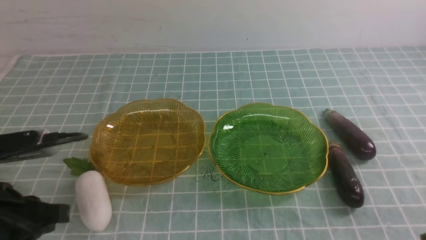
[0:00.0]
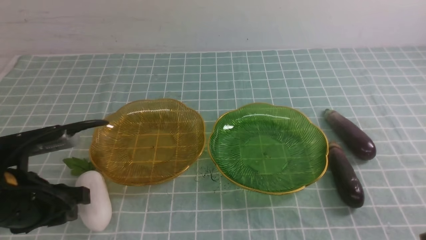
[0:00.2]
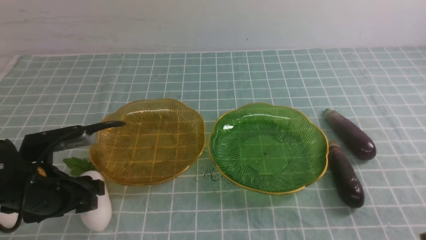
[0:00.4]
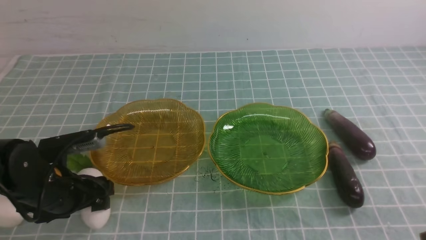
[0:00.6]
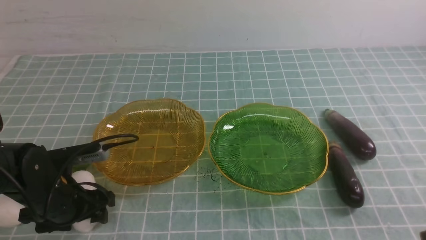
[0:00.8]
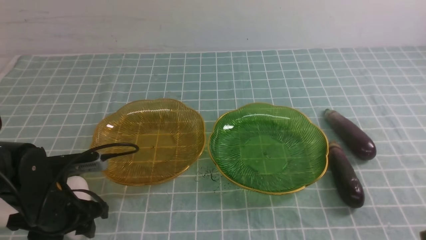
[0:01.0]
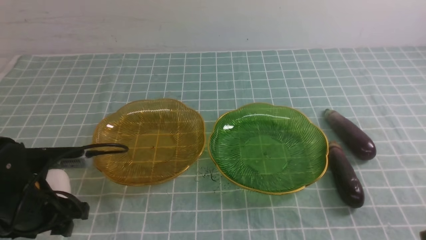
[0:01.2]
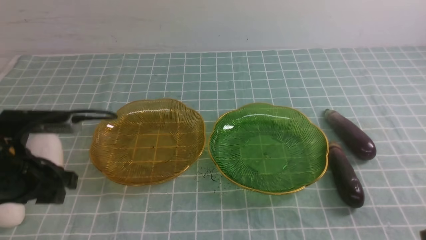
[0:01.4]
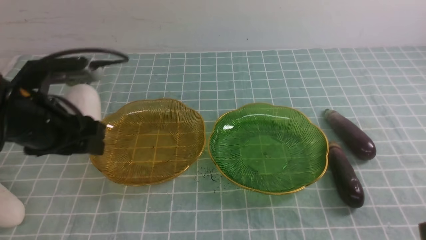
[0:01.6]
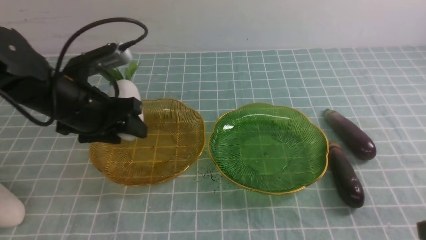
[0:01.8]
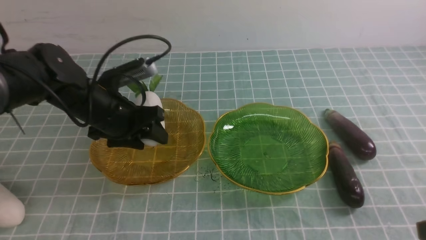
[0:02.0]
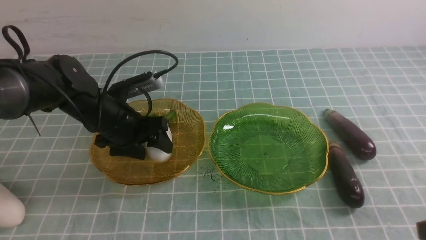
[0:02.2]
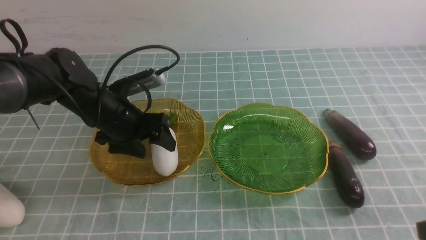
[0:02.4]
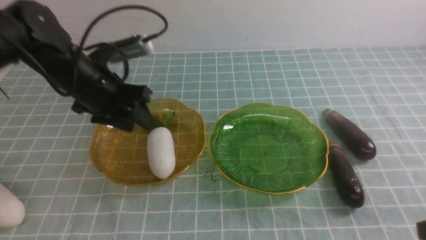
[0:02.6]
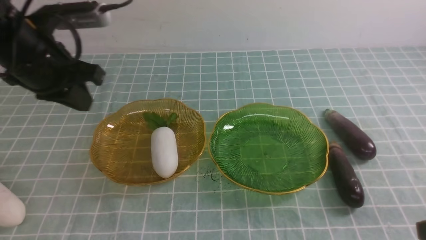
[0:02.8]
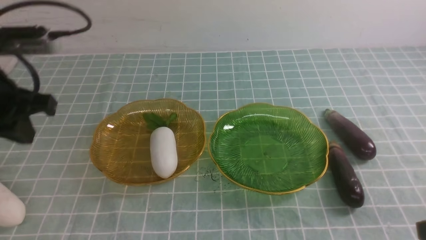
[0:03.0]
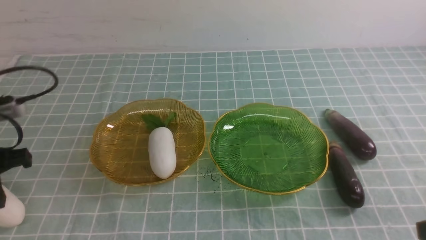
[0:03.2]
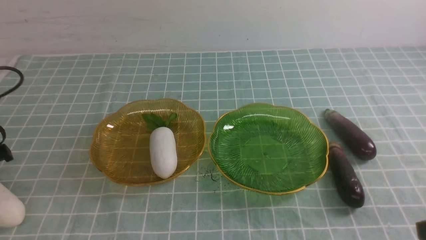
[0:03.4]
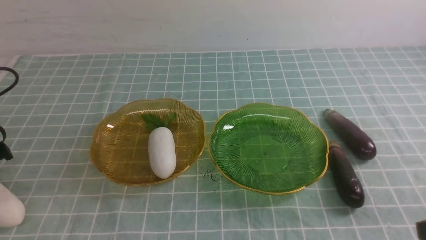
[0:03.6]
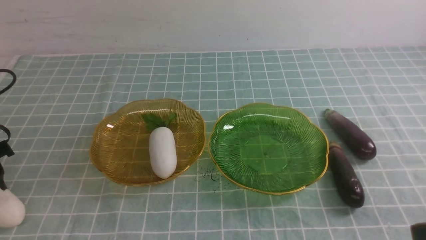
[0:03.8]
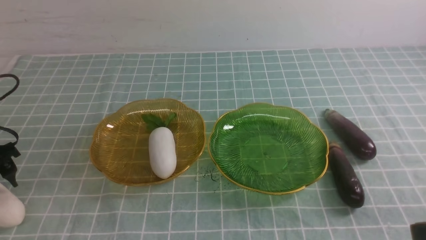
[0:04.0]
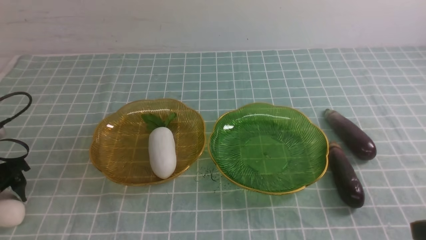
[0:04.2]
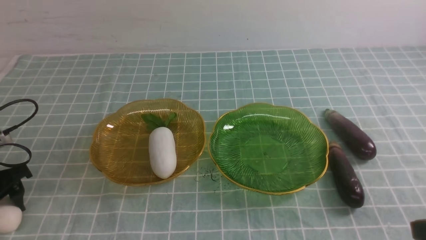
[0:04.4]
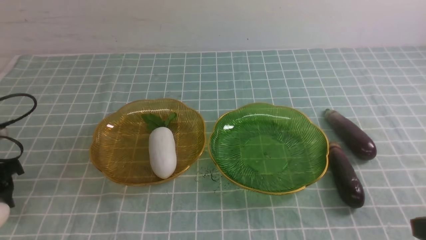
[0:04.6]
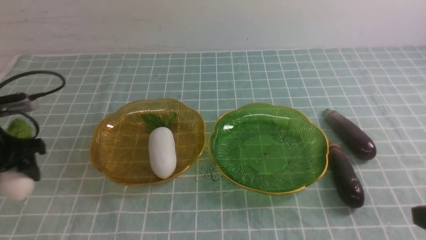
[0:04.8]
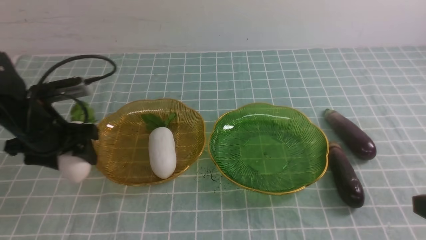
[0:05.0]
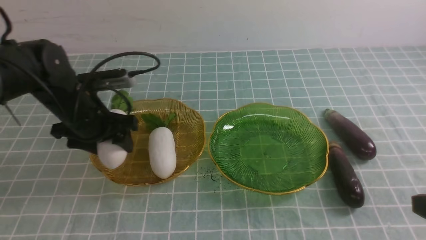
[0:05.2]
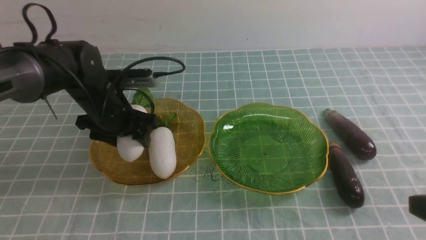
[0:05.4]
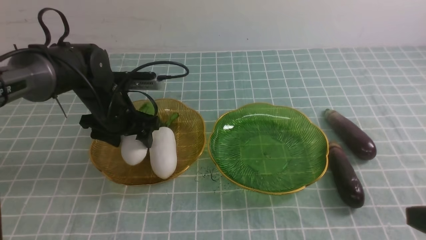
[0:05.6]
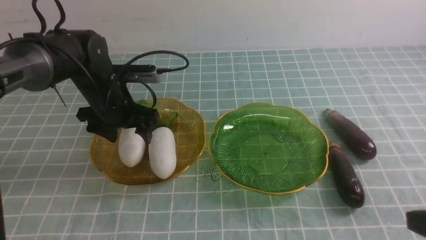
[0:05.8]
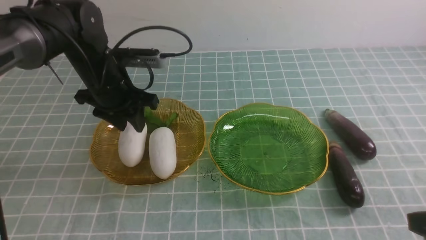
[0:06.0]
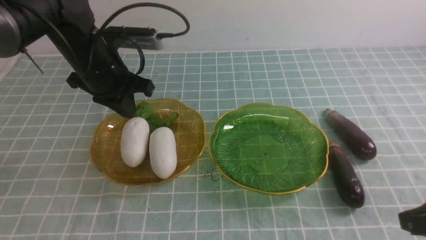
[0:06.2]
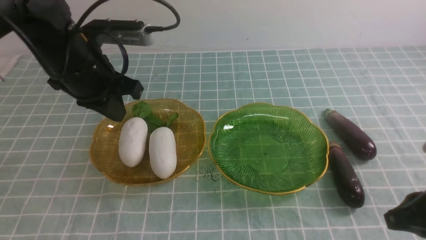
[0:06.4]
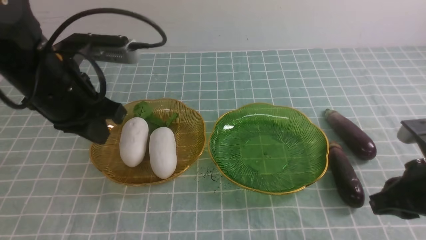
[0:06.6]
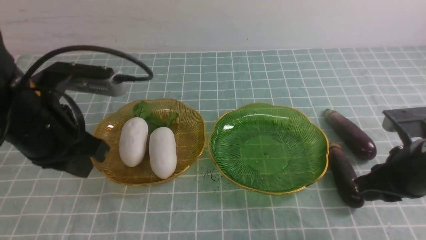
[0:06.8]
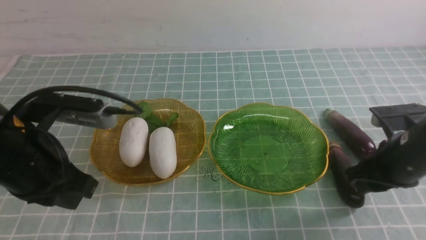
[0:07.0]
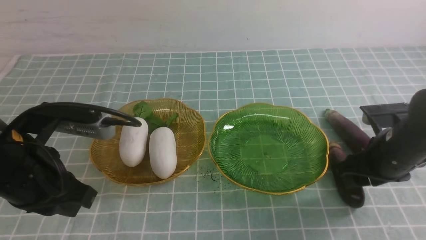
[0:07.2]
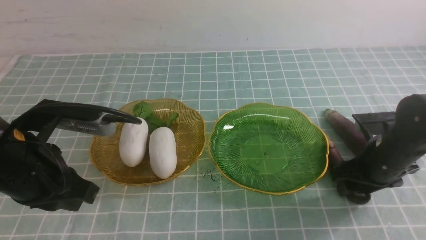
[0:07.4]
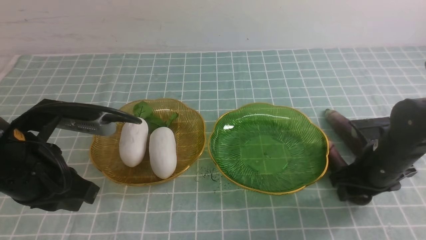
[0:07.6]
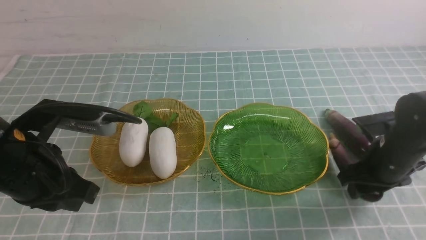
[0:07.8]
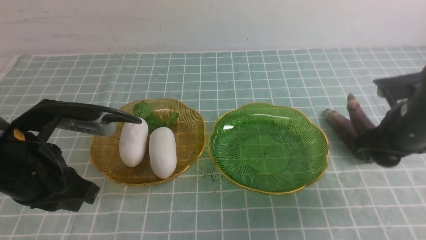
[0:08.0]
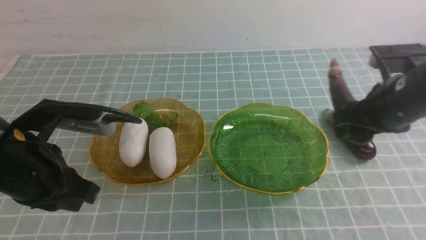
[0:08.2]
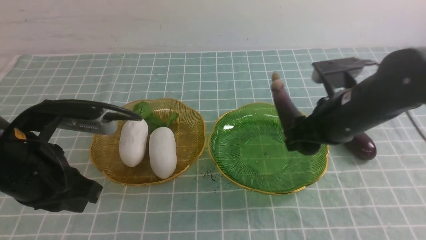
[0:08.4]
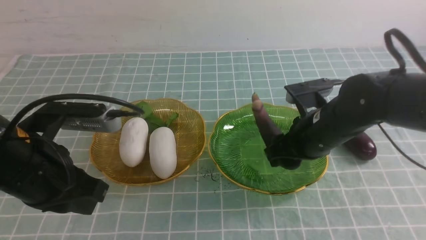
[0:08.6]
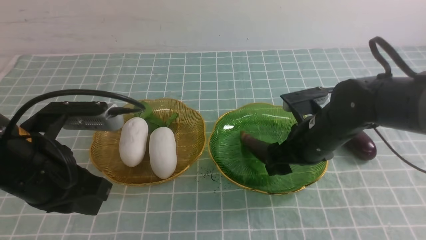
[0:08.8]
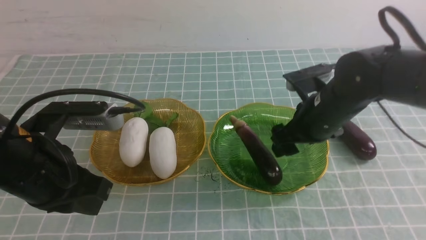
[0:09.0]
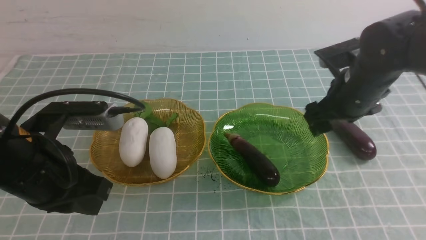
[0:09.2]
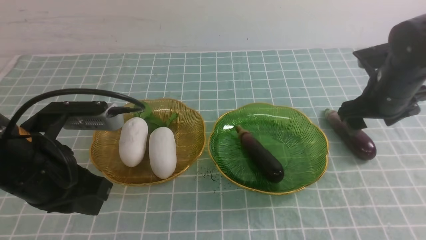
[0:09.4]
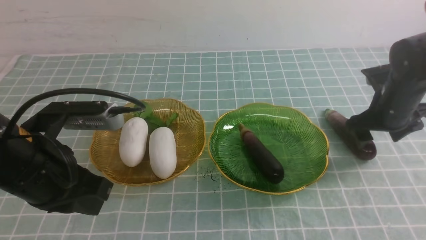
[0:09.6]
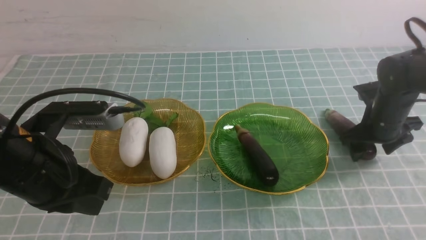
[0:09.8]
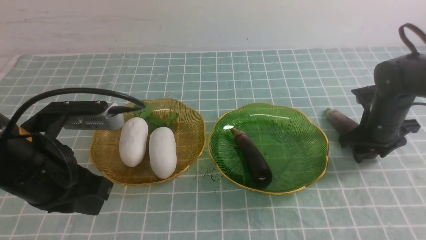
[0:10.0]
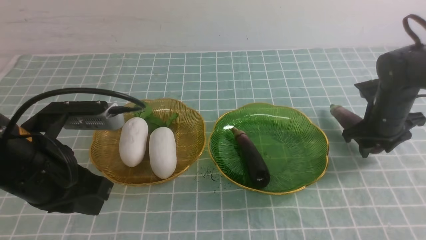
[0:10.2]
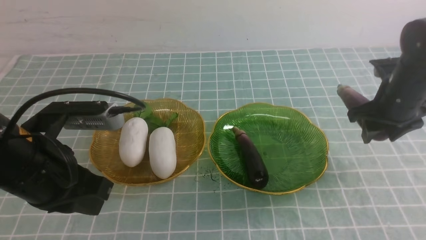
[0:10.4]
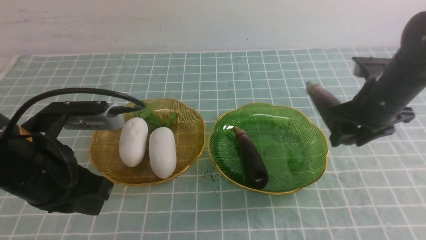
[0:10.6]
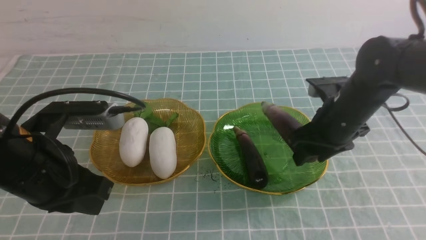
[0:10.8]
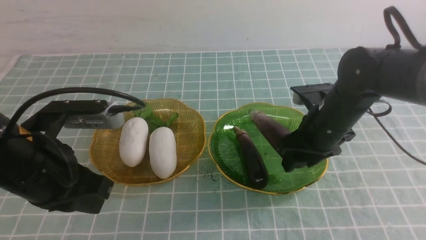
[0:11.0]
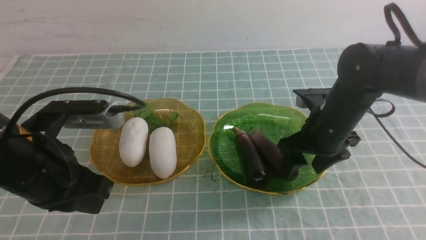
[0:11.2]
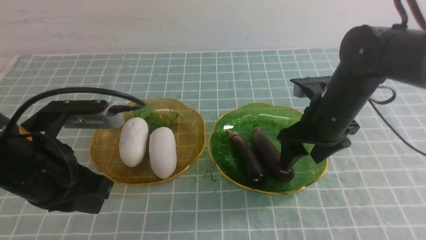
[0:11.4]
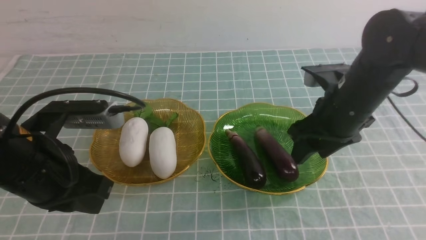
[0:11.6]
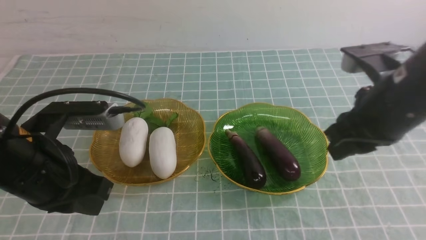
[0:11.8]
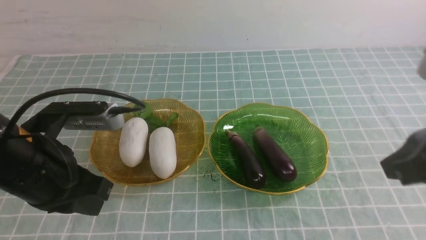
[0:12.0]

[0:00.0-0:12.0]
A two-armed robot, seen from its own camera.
Step, 0.0 to 2.2 s: use the left arm to grab a radish and put it into the left plate.
Step, 2.4 to 5.6 s: use the left arm to grab a radish and put it into the left plate.
Step, 5.8 to 11.4 s: use the right arm to grab an eggplant and put it into the right plate.
0.0 to 1.6 s: The left gripper shifts roughly 15 cm forward, and opens.
1.6 to 3.0 s: The left gripper shifts about 5 cm to the left, goes downward and returns, about 5 cm each way, and closes its fingers.
3.0 to 4.4 s: The left gripper is displaced downward and to the left by some 20 cm, and opens its fingers.
4.4 to 6.0 s: The left gripper travels to the right, forward and upward by approximately 25 cm, and closes.
6.0 to 7.6 s: The right gripper moves forward and downward, roughly 20 cm, and opens up, while the left gripper shifts about 20 cm backward, and closes.
7.6 to 9.0 s: The right gripper goes roughly 10 cm to the left and upward.
9.0 to 10.4 s: The right gripper heads to the right, covering some 10 cm, and closes.
10.4 to 12.0 s: The right gripper shifts roughly 25 cm backward and upward, and closes up.

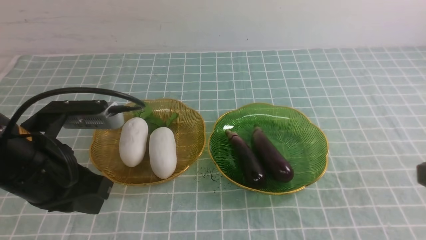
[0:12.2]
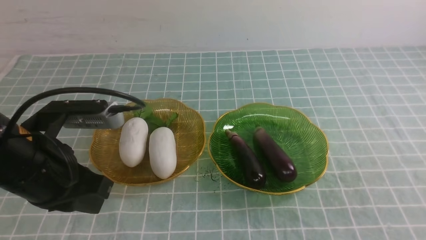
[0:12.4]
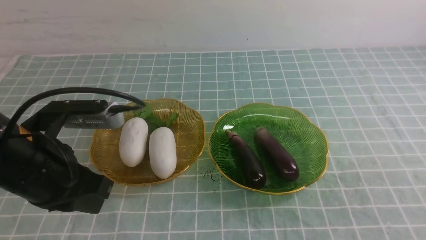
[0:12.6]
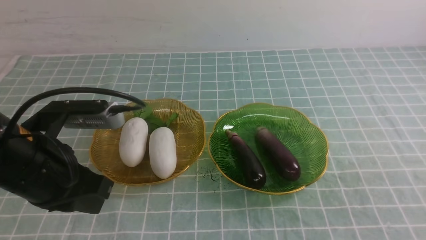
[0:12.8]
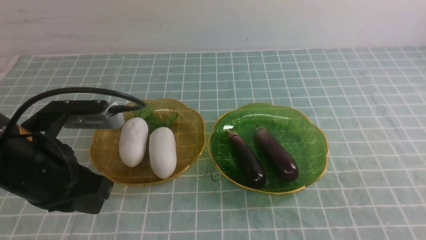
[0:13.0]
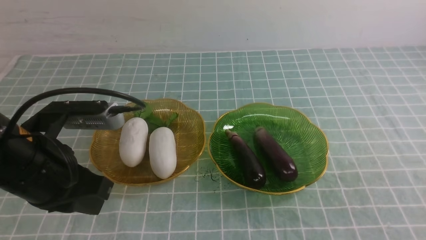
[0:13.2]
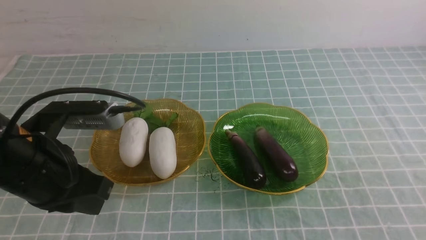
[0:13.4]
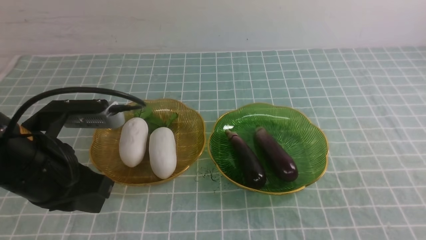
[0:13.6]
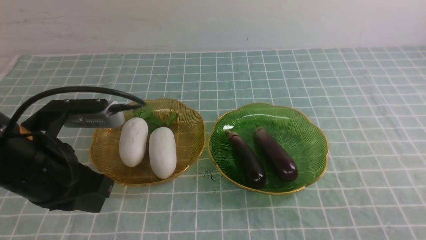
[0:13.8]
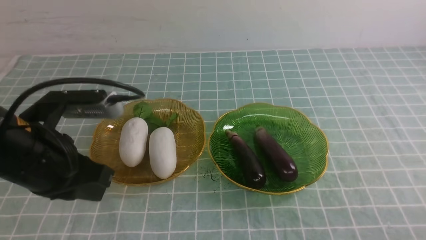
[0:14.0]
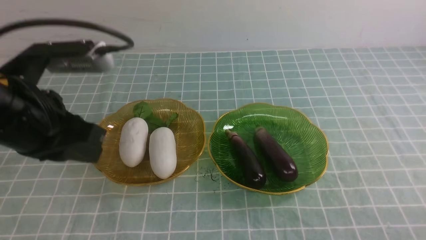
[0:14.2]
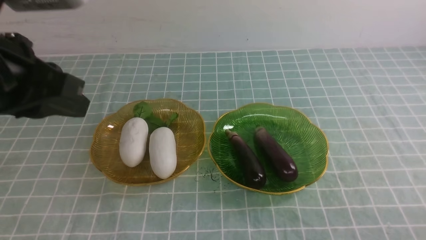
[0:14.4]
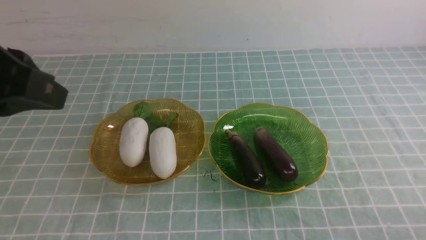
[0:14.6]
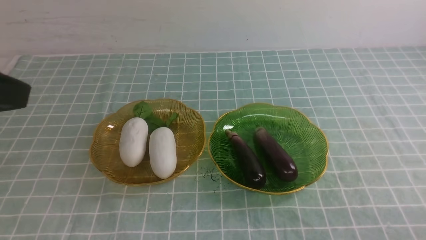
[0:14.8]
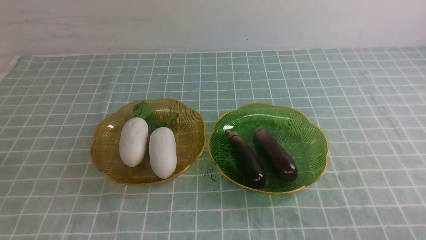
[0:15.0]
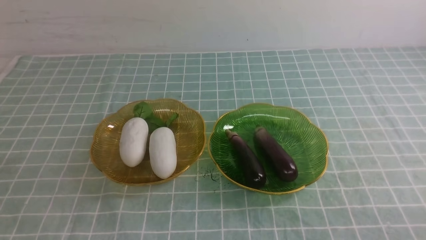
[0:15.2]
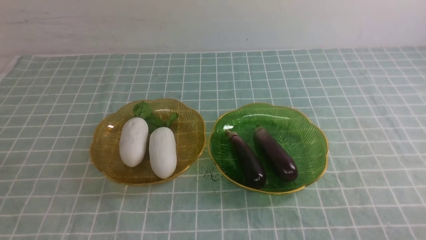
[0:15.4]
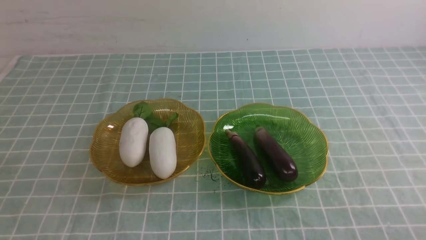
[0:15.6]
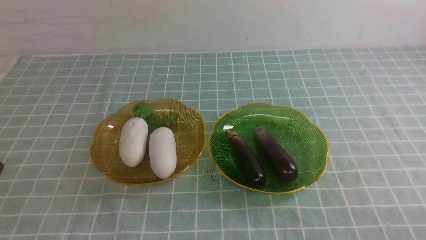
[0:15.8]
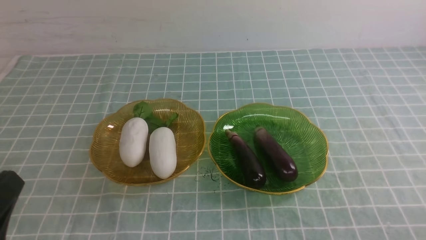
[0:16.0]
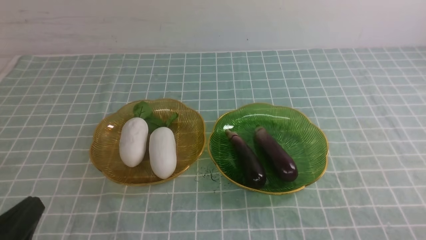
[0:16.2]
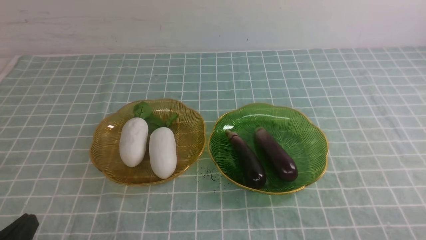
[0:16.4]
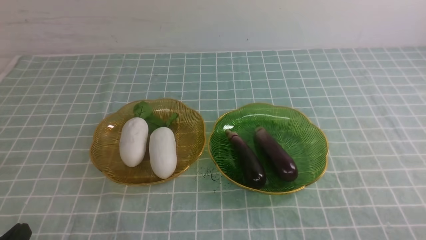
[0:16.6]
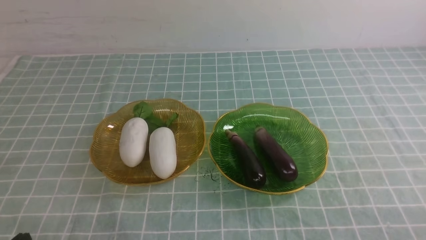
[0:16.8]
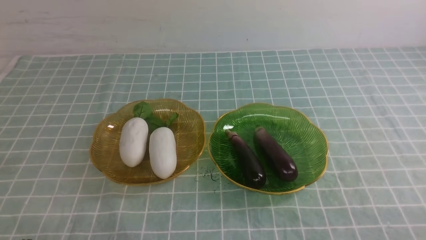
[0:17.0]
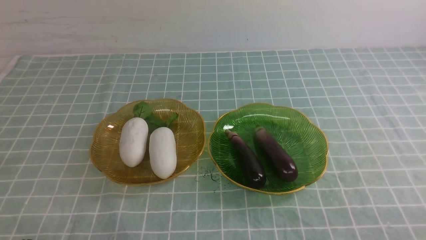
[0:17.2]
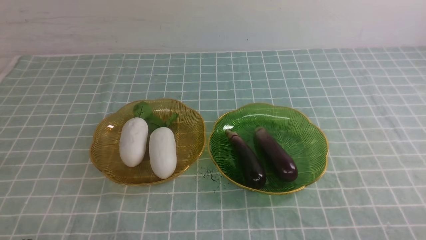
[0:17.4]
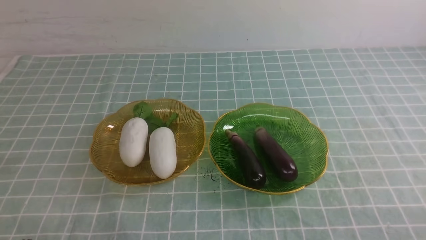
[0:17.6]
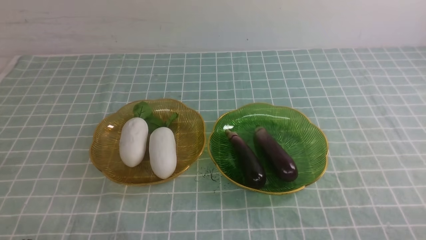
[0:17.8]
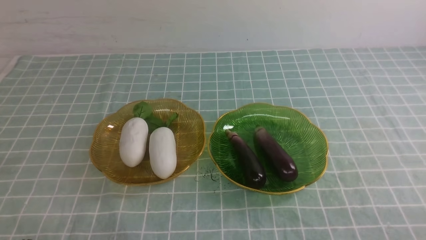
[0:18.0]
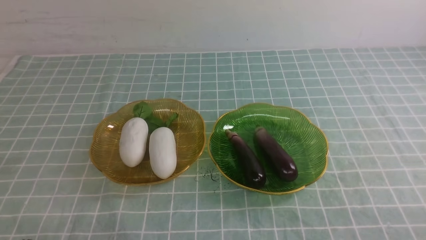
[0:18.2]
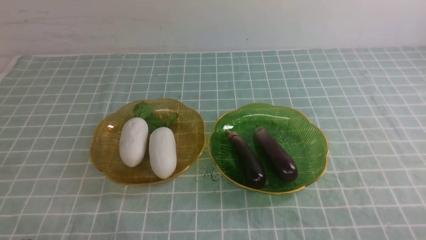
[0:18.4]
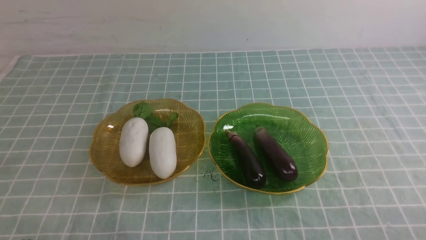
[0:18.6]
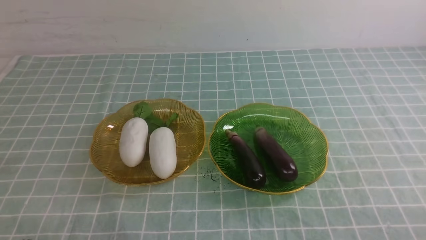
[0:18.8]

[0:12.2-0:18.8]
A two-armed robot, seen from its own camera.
12.2 to 13.8 s: The right gripper is displaced downward by approximately 10 cm.
13.8 to 15.4 s: The left gripper heads backward, covering roughly 15 cm.
17.2 to 18.8 s: Both grippers stay about where they are.
